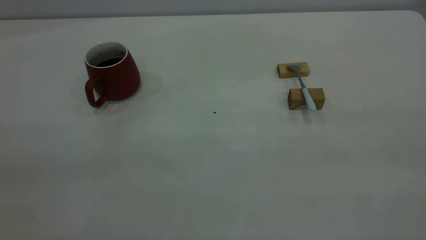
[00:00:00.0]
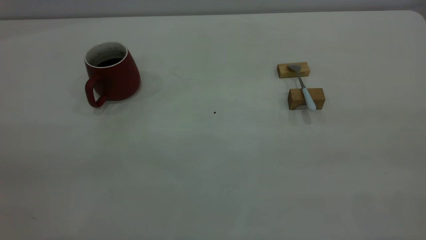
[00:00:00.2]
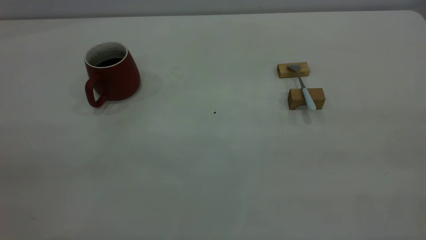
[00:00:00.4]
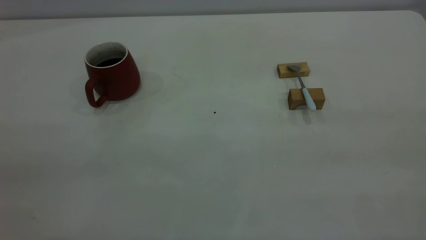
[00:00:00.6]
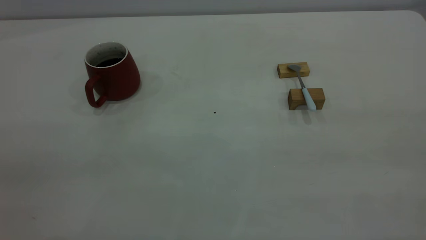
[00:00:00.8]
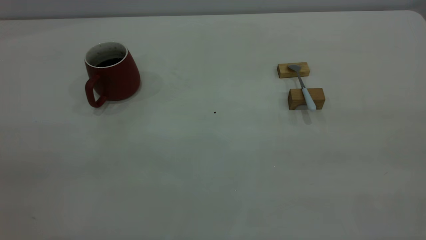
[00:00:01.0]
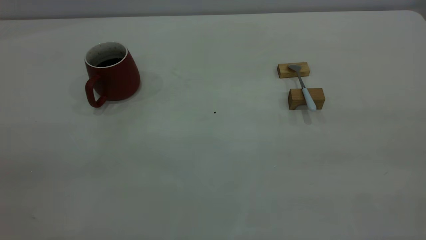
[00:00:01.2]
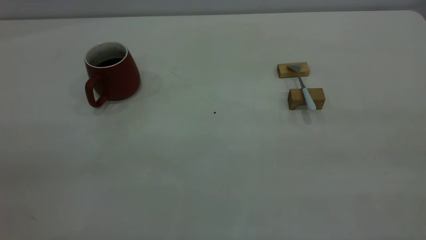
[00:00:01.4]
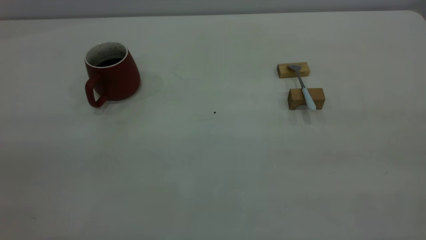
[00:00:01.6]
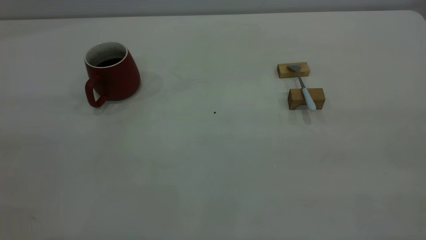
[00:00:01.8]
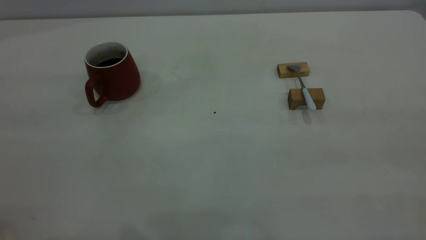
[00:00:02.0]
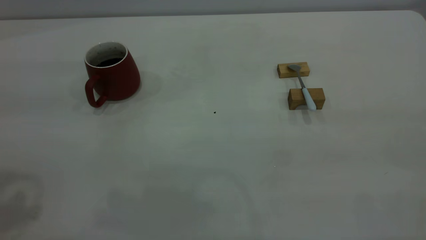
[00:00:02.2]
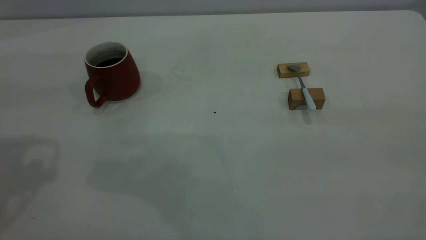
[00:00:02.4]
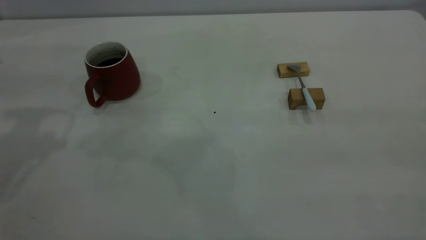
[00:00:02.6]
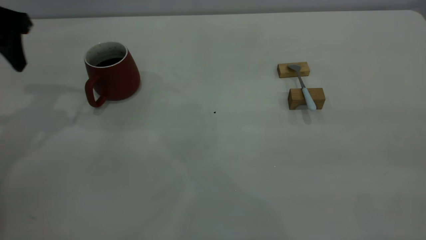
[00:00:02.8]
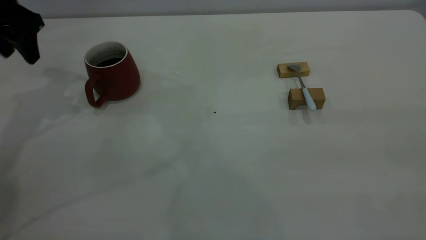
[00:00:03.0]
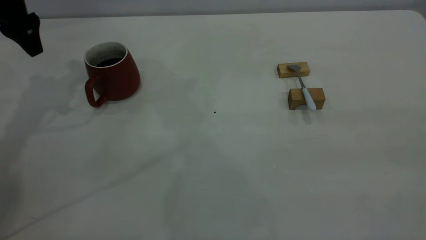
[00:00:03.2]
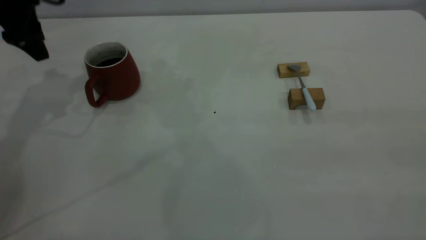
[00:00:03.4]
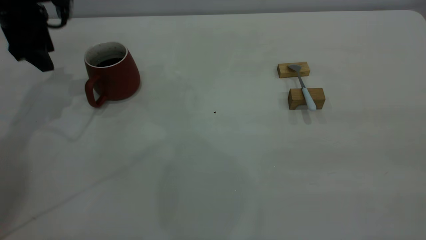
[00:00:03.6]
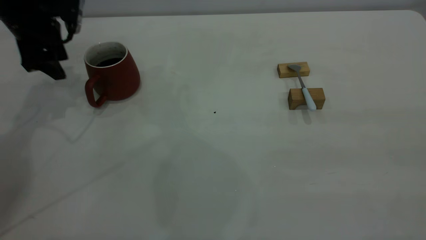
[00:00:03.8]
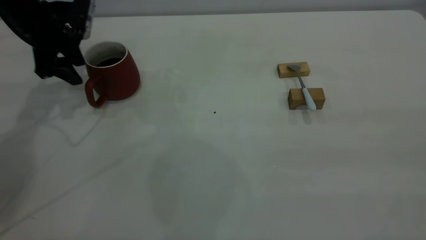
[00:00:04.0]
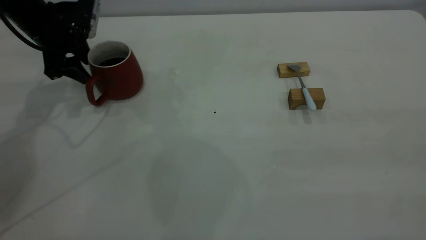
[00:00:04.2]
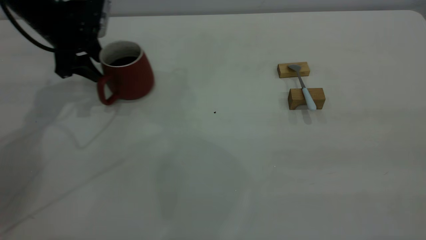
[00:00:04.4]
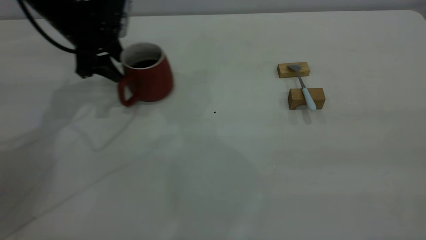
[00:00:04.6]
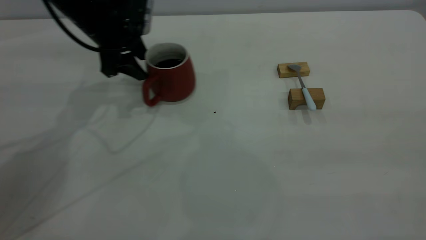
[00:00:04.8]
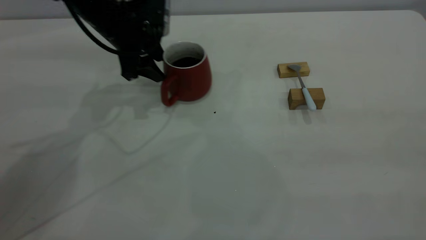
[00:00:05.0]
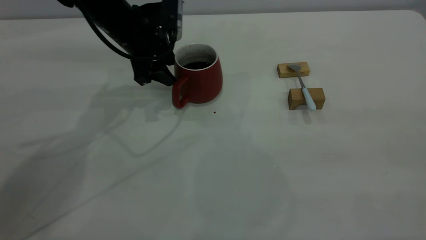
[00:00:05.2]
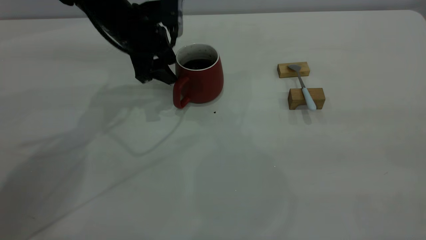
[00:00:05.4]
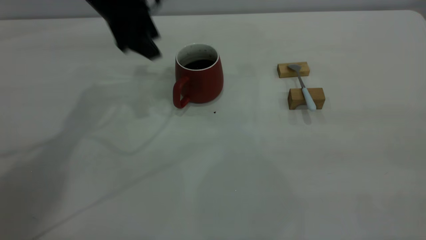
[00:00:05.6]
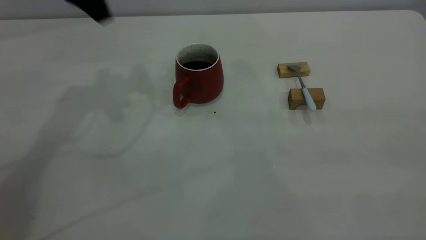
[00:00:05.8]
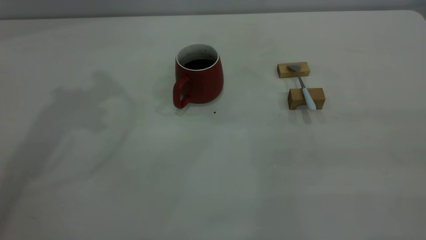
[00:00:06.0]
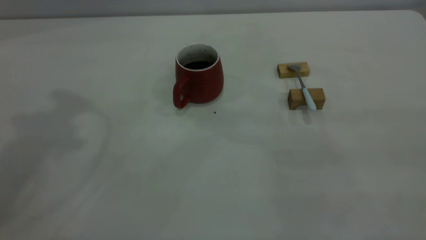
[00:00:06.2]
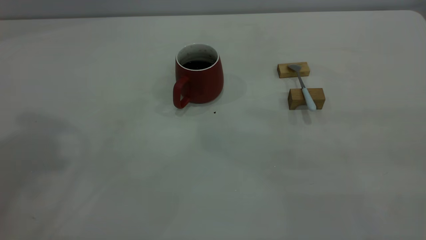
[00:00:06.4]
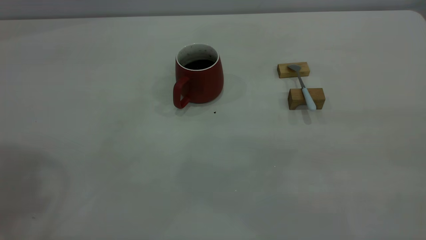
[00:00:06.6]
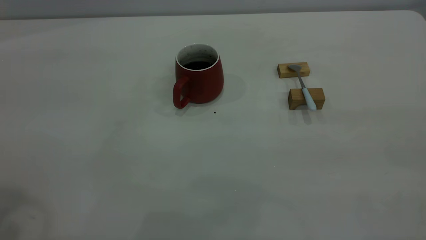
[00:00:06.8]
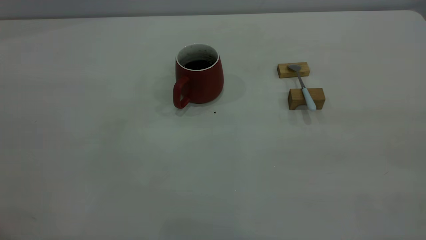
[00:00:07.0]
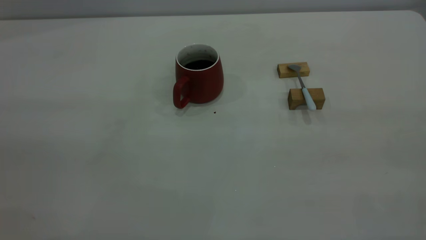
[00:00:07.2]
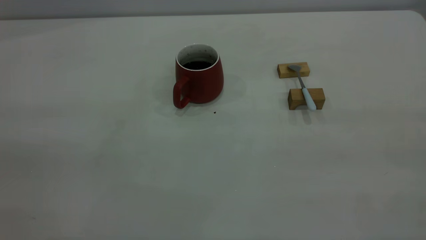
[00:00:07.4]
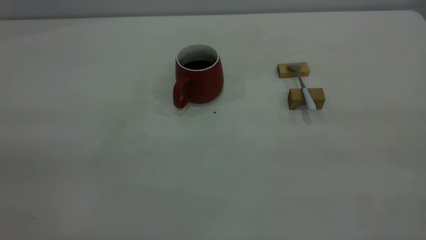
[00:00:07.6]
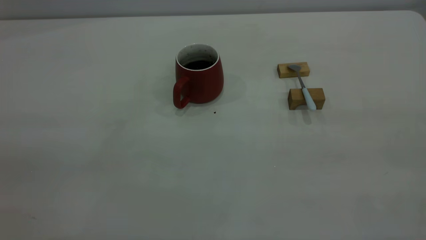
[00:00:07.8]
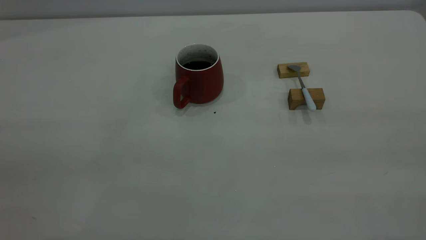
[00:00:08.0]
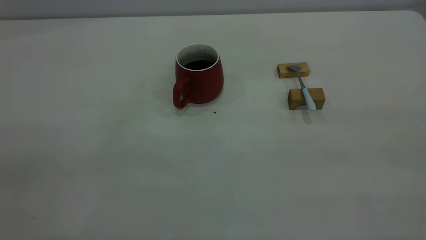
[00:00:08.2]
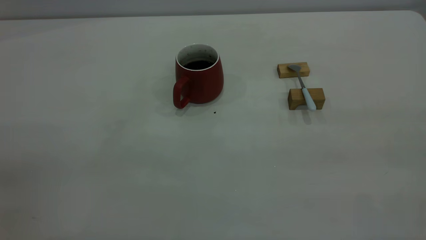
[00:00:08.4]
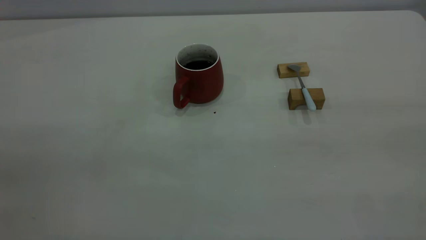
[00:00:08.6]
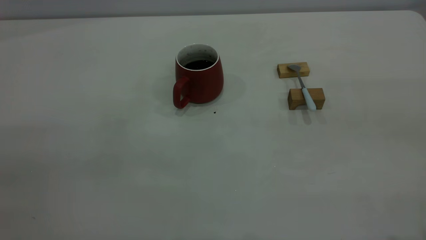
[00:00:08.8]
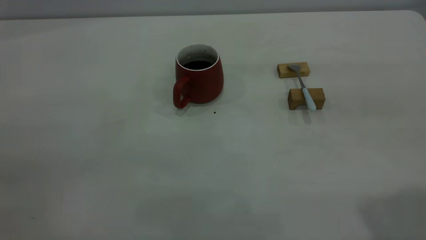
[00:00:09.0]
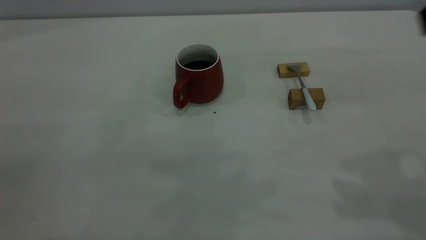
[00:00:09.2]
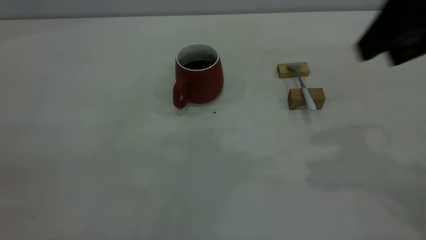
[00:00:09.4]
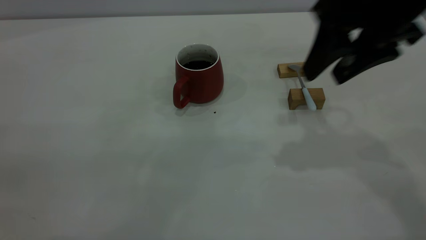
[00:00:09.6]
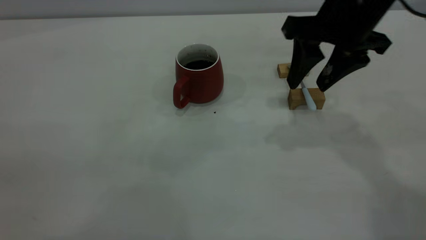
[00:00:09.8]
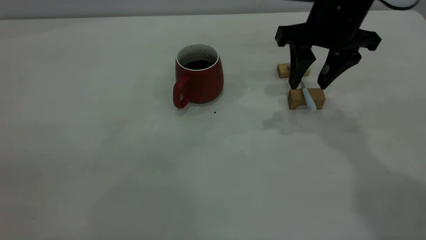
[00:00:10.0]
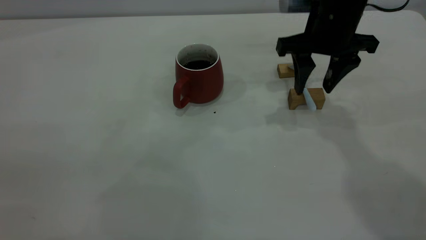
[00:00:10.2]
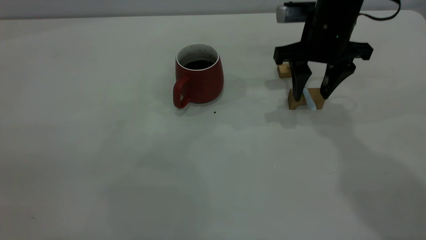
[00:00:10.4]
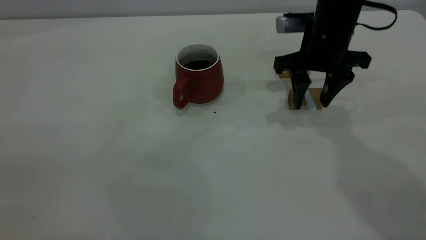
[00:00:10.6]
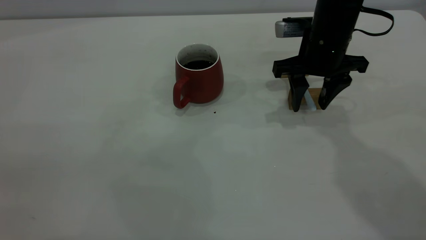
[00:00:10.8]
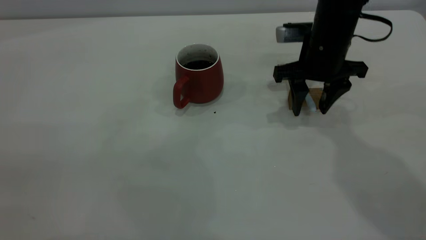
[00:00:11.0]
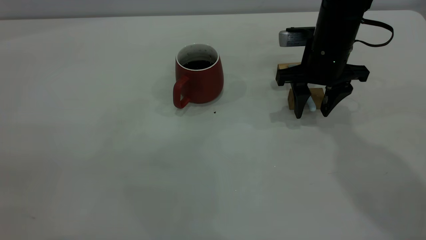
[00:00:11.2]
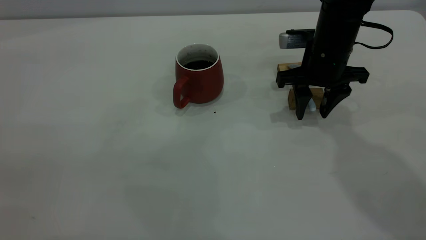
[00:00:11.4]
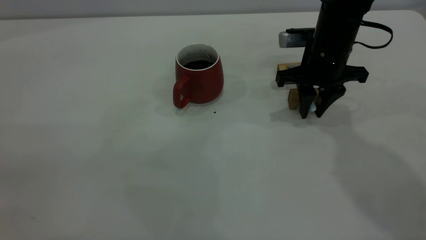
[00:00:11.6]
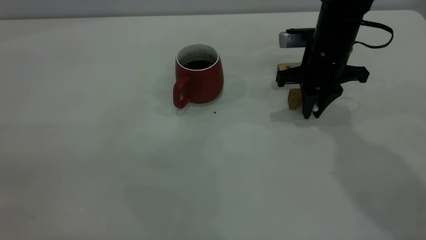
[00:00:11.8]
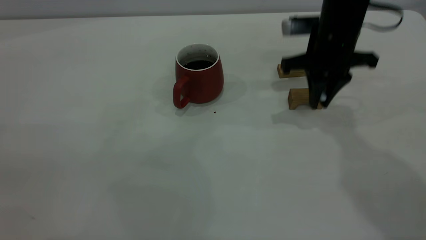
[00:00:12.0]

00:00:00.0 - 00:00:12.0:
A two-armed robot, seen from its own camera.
Step, 00:00:00.0 - 00:00:05.4: Move the cup with coffee to the center of view.
00:00:01.6 - 00:00:03.0: The left gripper travels forward and downward by approximately 50 cm.
00:00:03.0 - 00:00:04.4: The left gripper heads downward and to the right, covering roughly 10 cm.
00:00:04.4 - 00:00:06.0: The left gripper goes approximately 30 cm upward.
00:00:09.0 - 00:00:10.4: The right gripper is displaced forward, downward and to the left by approximately 35 cm.
00:00:10.4 - 00:00:12.0: The right gripper closes.

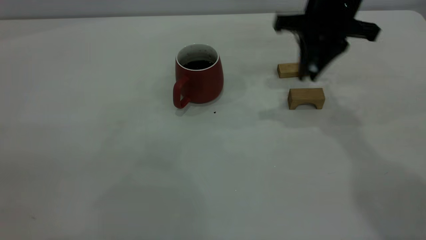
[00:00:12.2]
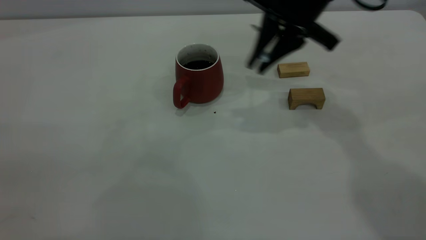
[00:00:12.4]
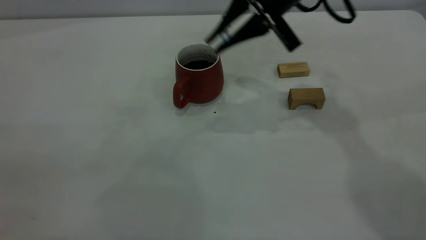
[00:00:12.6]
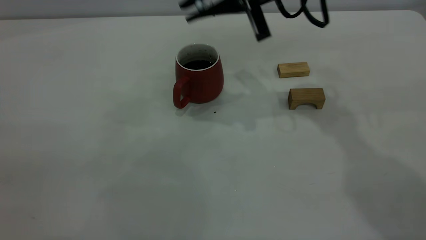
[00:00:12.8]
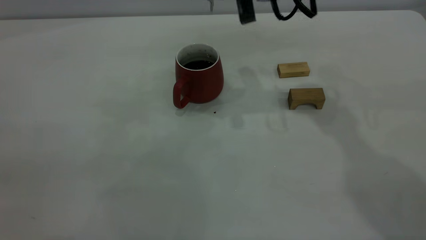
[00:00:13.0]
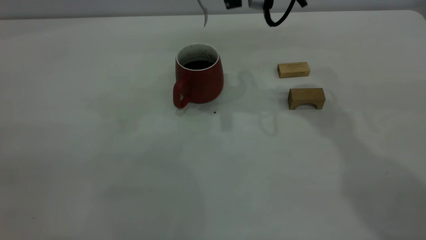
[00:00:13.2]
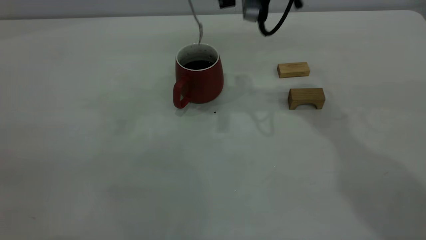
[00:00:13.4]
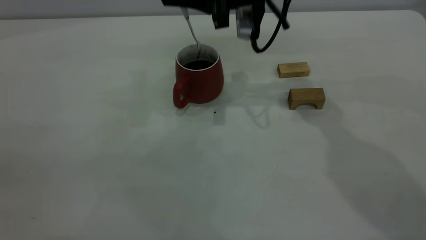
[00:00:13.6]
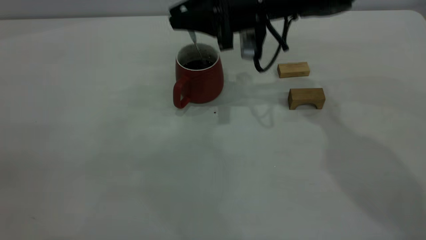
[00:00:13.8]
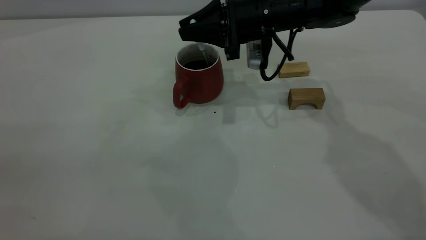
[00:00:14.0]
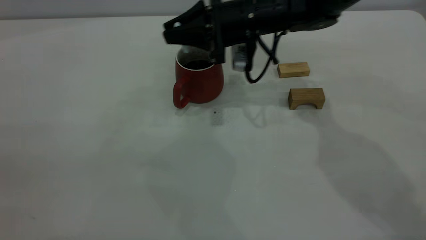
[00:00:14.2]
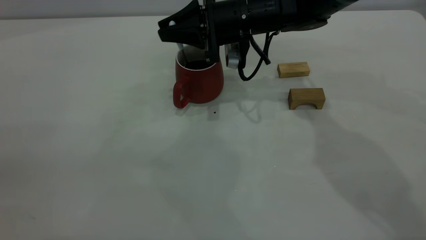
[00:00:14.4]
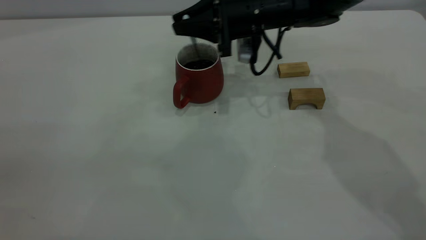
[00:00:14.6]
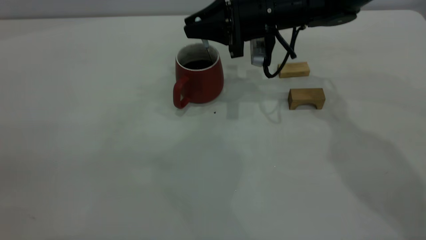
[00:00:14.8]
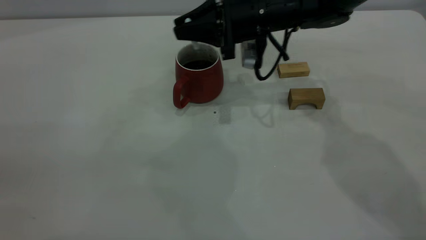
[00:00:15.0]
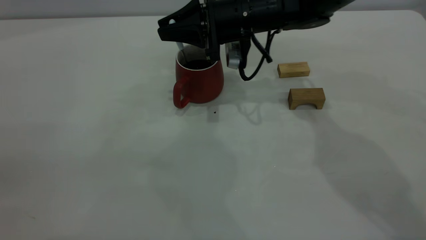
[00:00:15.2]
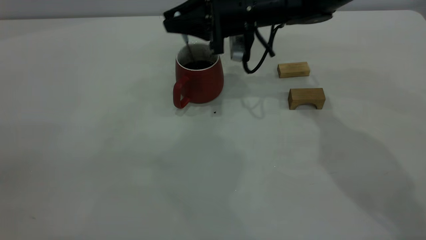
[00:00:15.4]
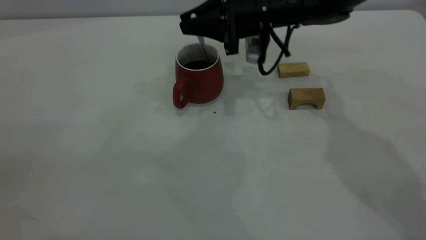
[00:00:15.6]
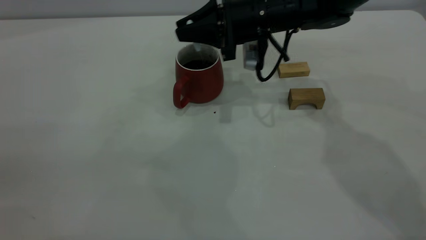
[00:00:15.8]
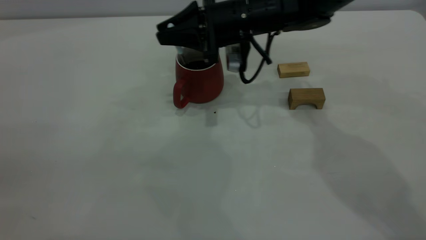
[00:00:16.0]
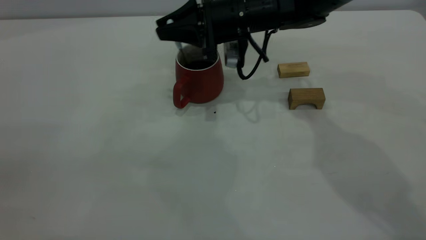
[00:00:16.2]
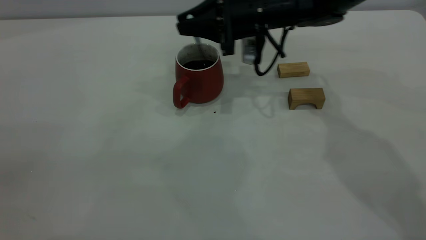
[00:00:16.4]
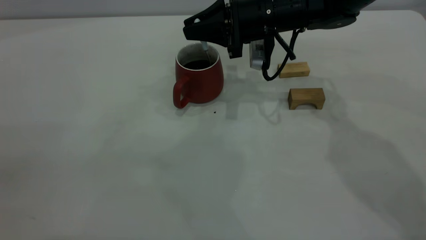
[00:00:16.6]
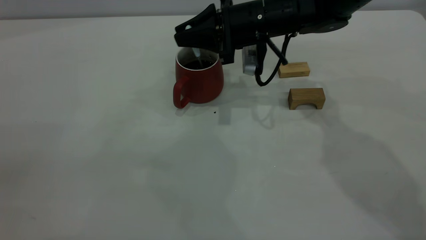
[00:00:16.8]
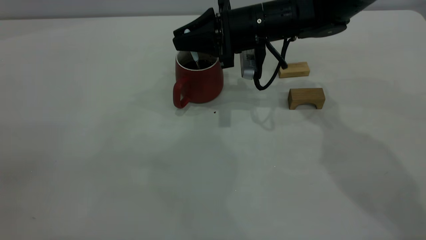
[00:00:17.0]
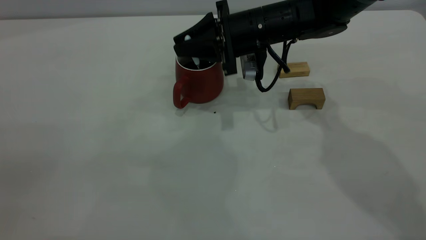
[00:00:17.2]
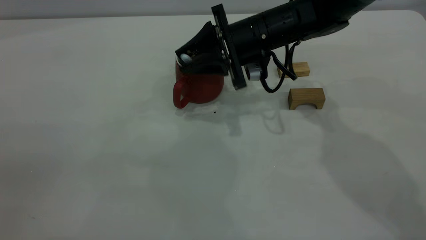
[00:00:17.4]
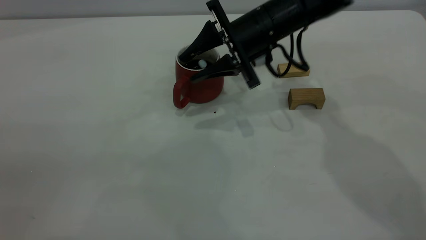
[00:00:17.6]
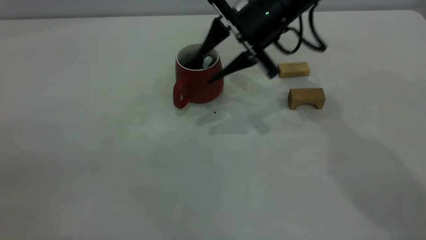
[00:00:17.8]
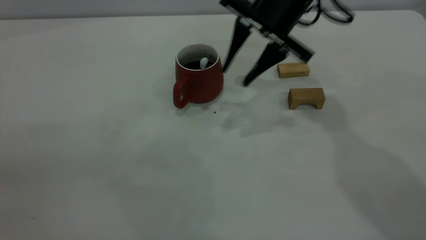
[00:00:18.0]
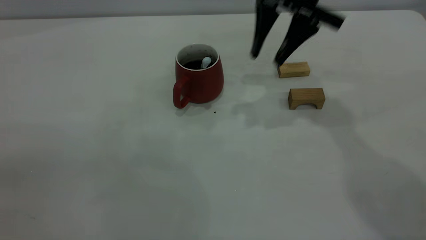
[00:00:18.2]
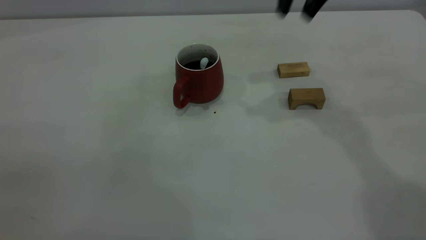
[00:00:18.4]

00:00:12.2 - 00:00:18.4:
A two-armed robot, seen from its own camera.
Step, 00:00:12.2 - 00:00:17.8: Stir the coffee in the cup.
00:00:12.2 - 00:00:13.8: The right gripper moves to the left and downward, about 10 cm.
00:00:13.8 - 00:00:16.8: The grippers make only small movements.
00:00:16.8 - 00:00:18.4: The right gripper shifts some 20 cm upward, and opens up.
